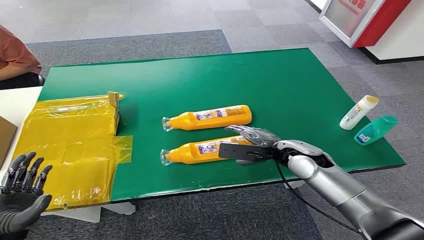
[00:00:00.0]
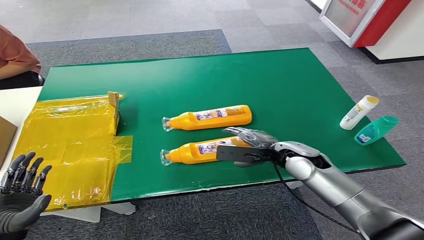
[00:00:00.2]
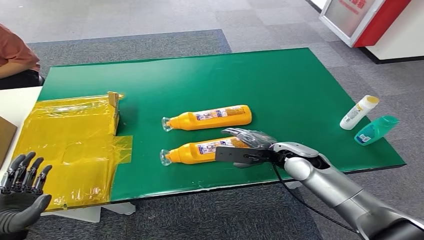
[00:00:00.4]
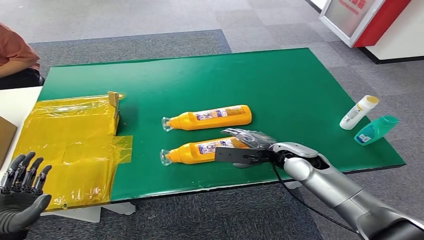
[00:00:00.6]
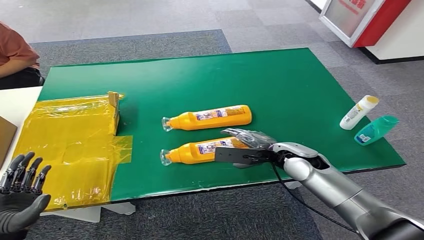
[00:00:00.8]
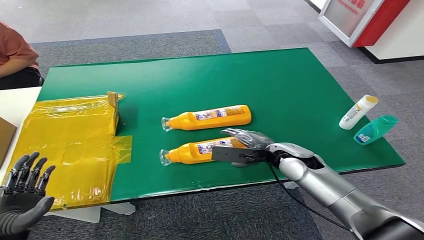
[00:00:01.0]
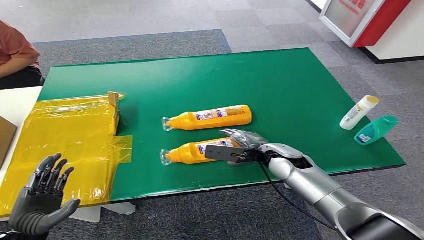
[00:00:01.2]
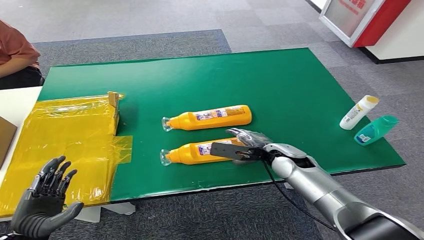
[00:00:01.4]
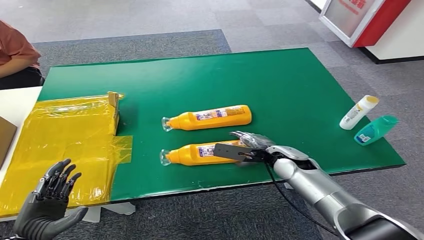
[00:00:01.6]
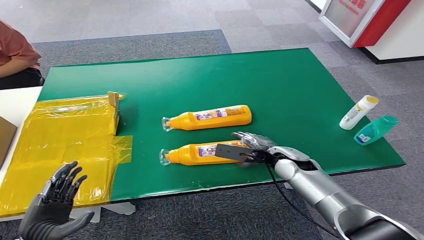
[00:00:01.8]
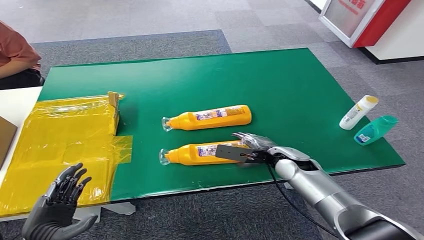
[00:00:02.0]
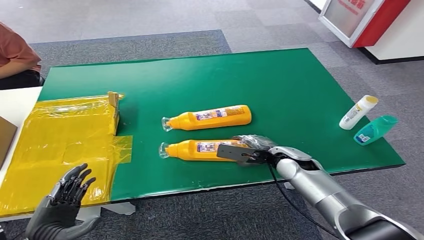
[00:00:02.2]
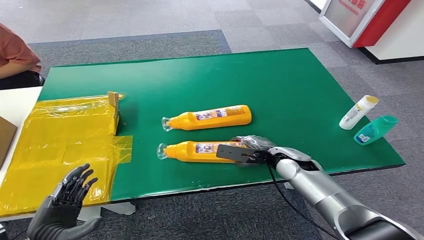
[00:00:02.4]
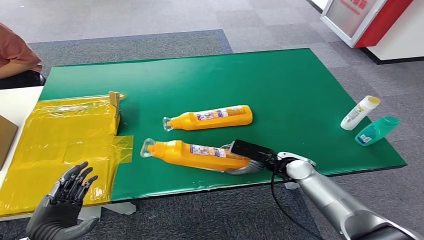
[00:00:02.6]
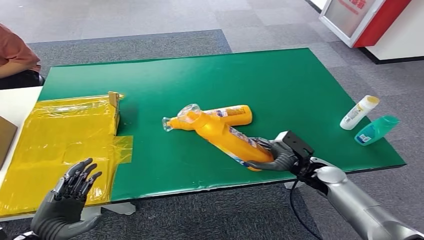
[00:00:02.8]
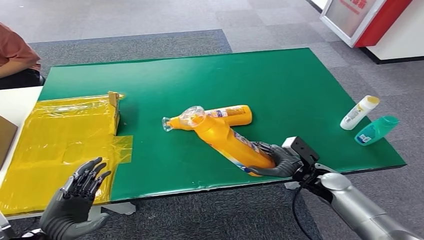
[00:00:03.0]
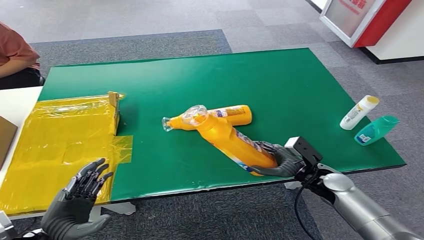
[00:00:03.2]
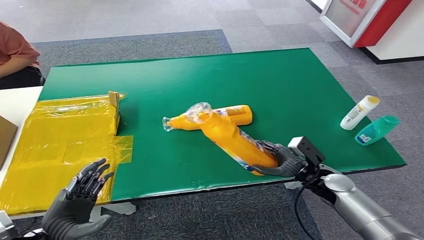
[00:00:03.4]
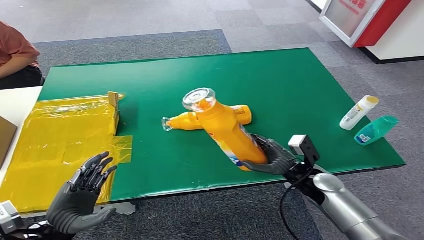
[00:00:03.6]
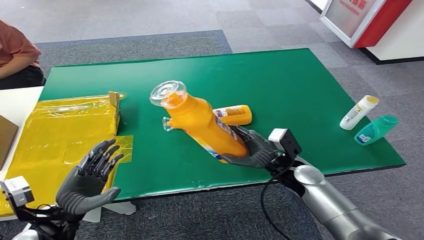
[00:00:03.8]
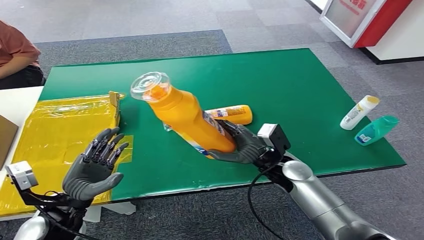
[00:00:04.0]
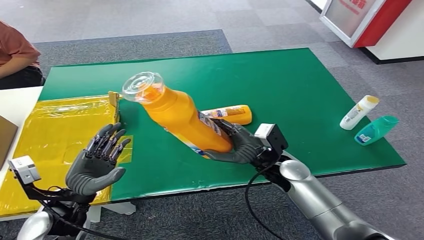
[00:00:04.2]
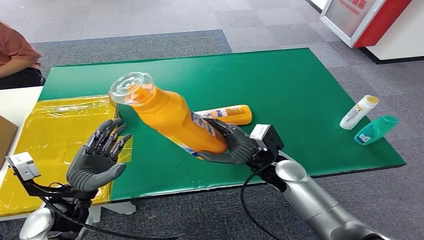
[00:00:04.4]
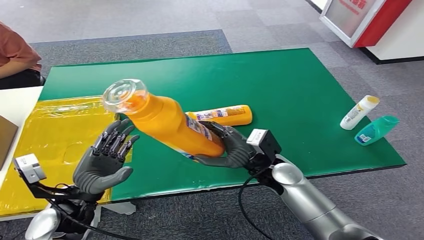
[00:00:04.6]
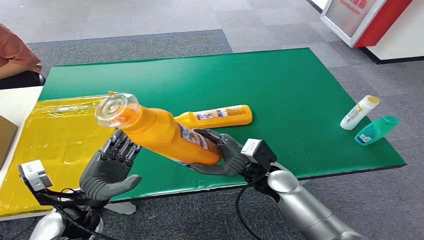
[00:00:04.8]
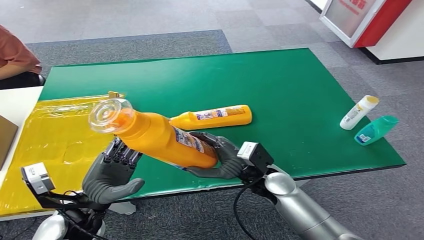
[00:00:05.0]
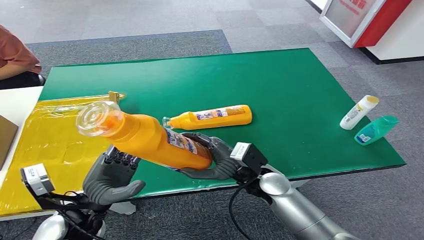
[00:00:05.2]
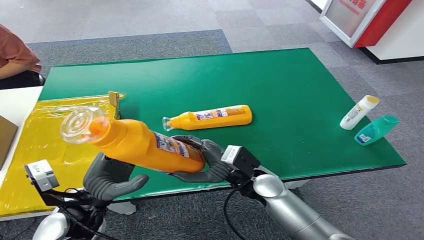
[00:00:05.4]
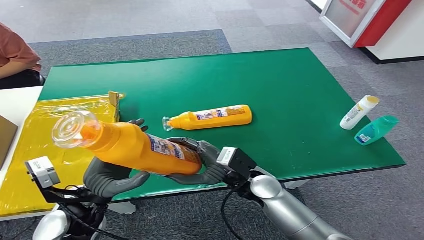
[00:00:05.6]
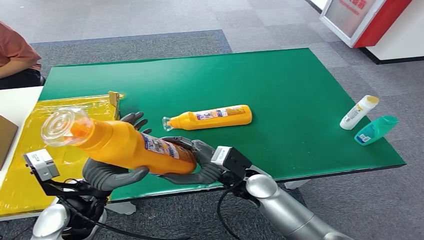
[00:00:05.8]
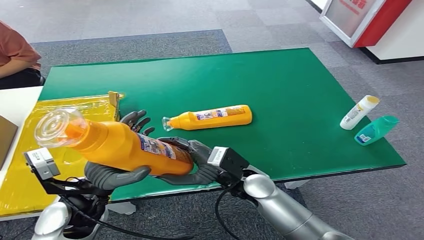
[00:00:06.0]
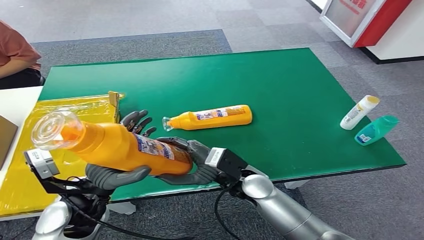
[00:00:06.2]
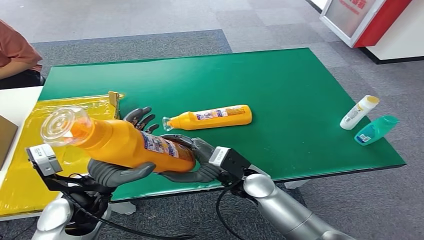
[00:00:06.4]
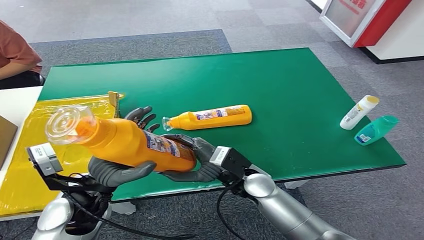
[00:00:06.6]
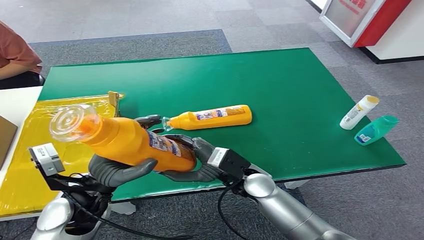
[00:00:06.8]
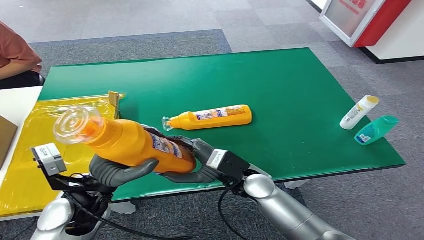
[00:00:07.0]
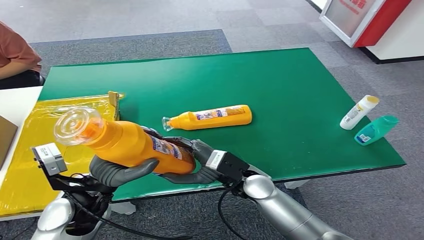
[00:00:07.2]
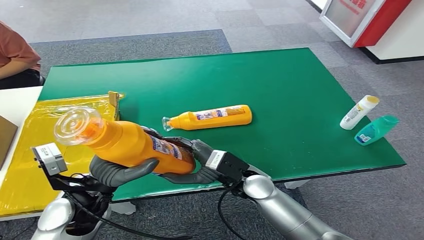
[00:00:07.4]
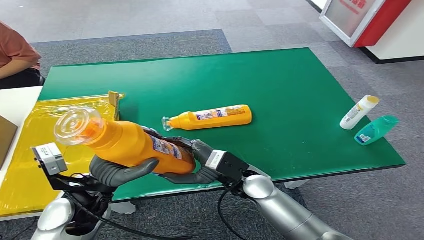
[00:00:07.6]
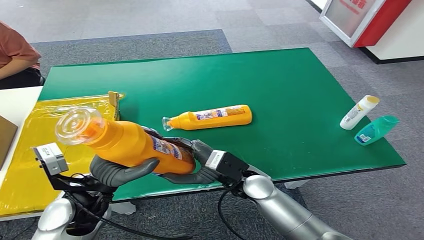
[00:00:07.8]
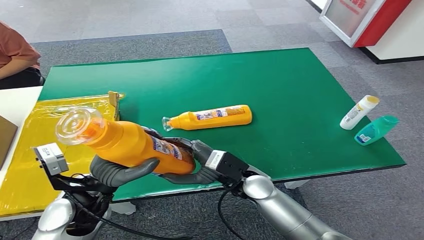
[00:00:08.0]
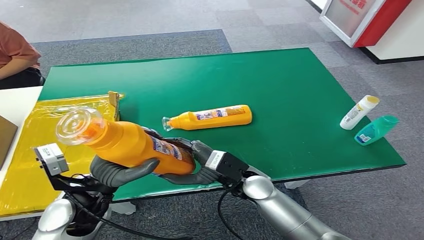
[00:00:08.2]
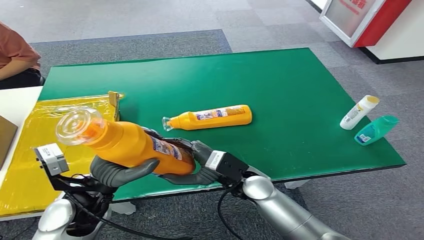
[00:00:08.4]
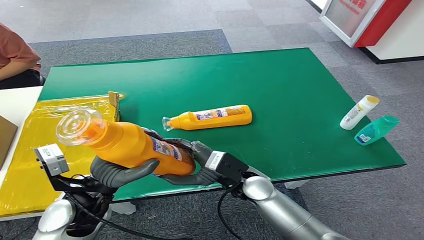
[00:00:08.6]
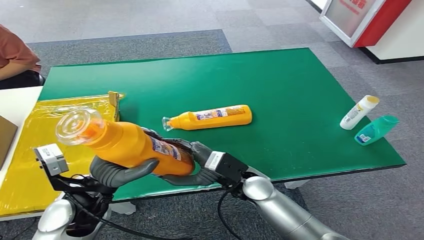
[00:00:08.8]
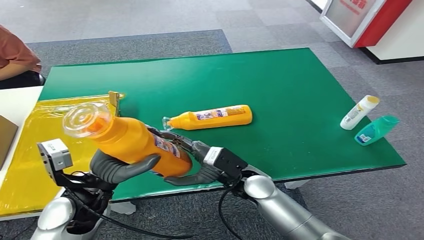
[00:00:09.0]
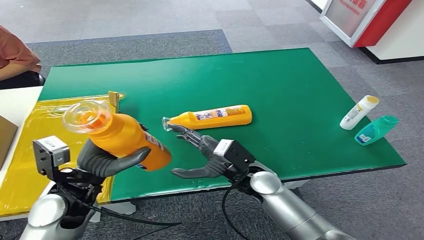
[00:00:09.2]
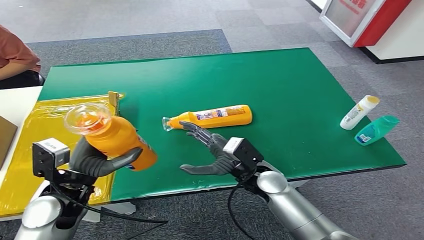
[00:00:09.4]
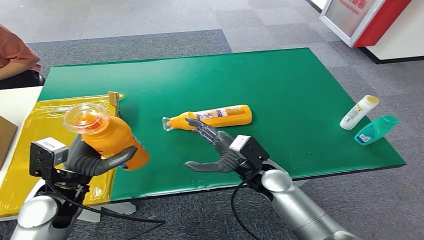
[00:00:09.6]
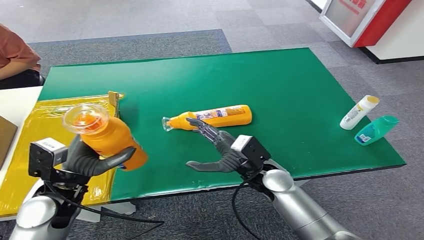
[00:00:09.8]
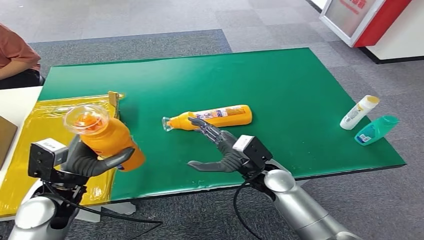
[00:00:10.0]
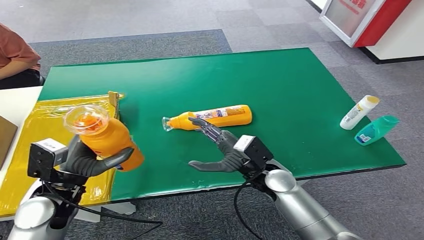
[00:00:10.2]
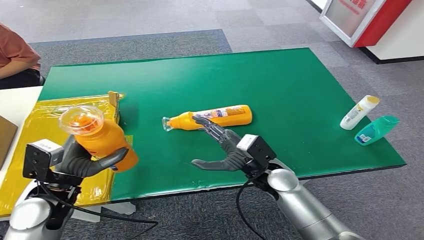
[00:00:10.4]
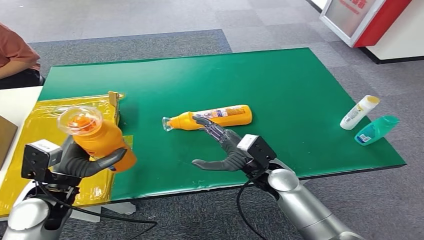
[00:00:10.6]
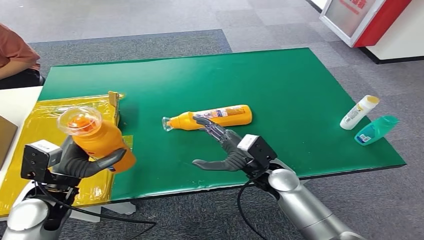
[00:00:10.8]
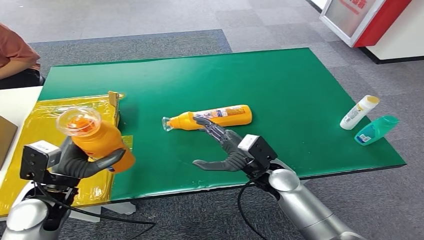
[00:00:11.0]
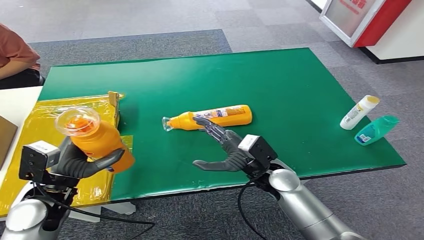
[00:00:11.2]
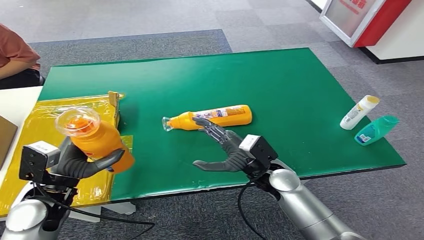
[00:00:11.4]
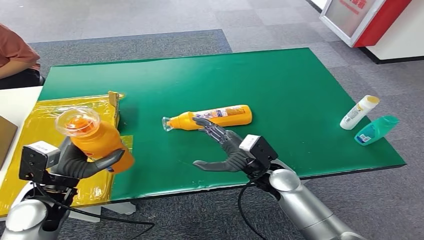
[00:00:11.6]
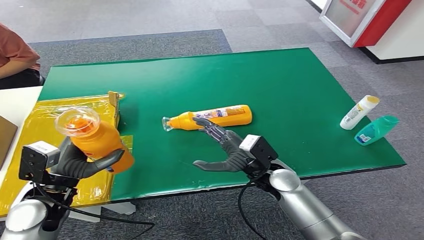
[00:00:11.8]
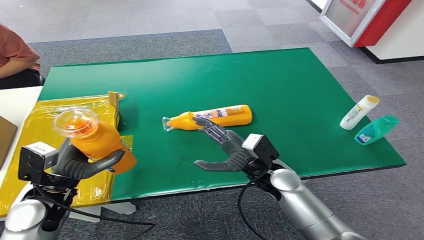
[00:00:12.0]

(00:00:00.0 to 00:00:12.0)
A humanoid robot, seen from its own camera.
Step, 00:00:00.0 - 00:00:03.2: Pick up the bottle from the table.
00:00:01.6 - 00:00:03.0: The right hand heads to the right and backward, covering approximately 10 cm.
00:00:03.0 - 00:00:04.4: The left hand shifts roughly 10 cm forward. Meanwhile the right hand goes approximately 15 cm to the left and upward.
00:00:06.0 - 00:00:09.0: The hands move only a little.
00:00:09.0 - 00:00:10.4: The right hand moves to the right, roughly 5 cm. The left hand is displaced to the left by about 5 cm.
00:00:10.4 - 00:00:12.0: Both hands stay about where they are.

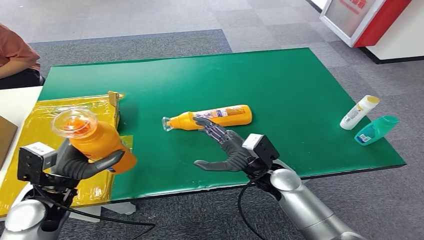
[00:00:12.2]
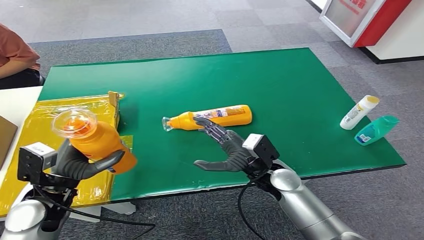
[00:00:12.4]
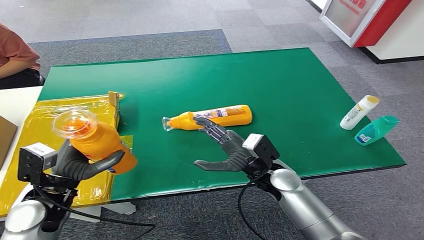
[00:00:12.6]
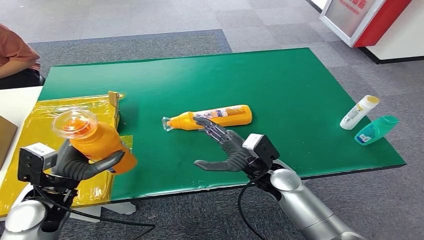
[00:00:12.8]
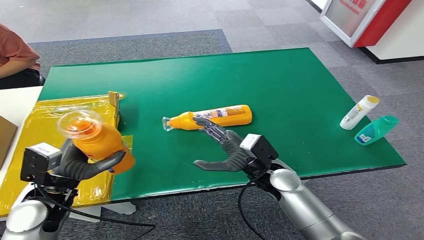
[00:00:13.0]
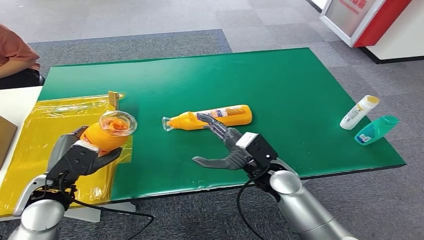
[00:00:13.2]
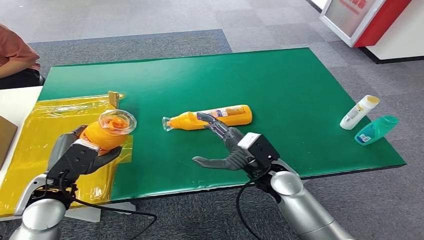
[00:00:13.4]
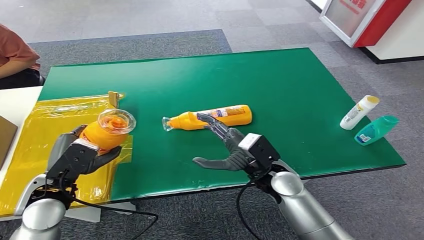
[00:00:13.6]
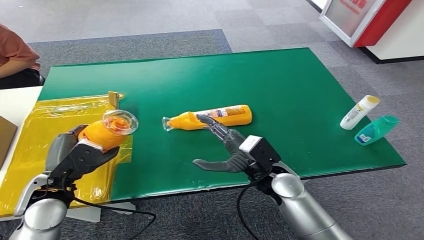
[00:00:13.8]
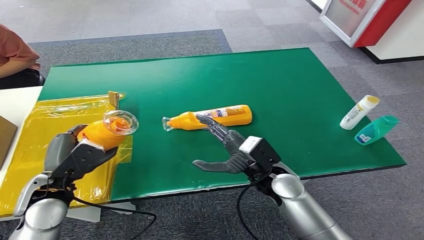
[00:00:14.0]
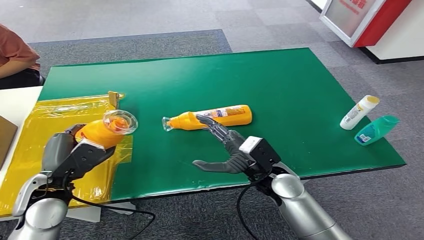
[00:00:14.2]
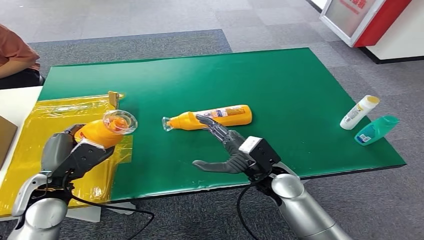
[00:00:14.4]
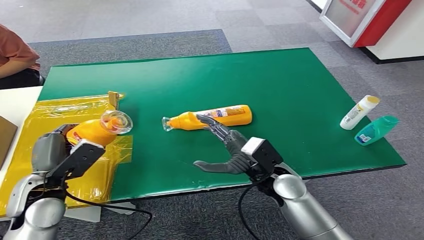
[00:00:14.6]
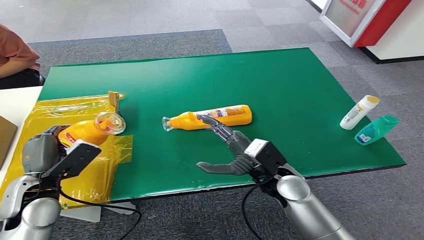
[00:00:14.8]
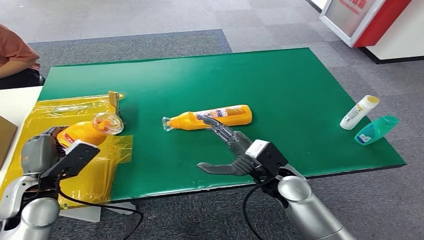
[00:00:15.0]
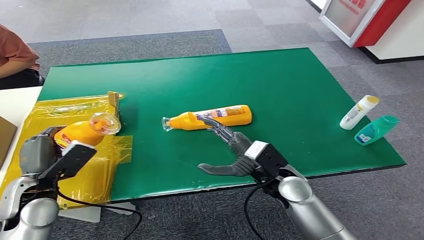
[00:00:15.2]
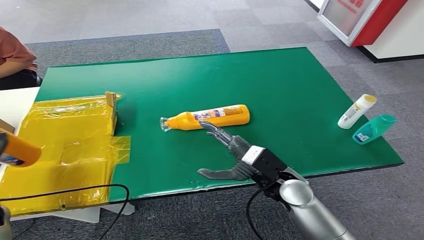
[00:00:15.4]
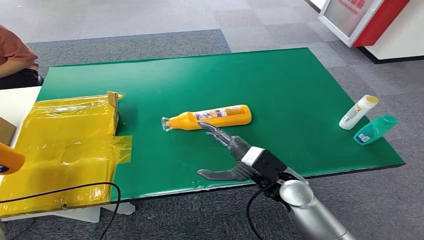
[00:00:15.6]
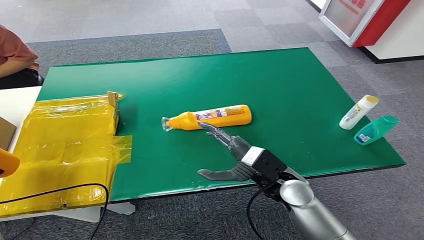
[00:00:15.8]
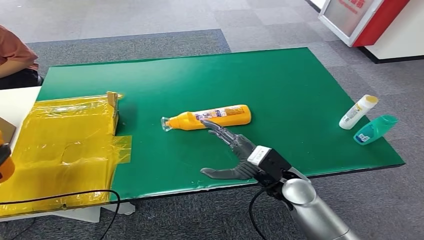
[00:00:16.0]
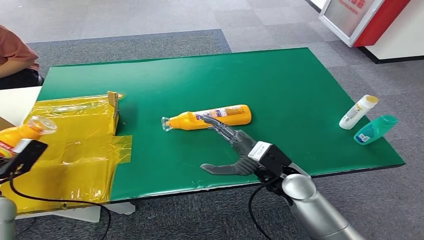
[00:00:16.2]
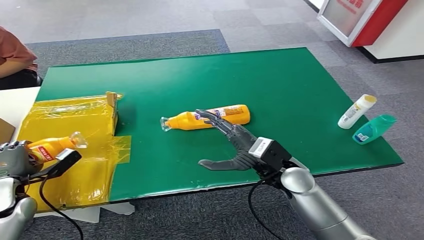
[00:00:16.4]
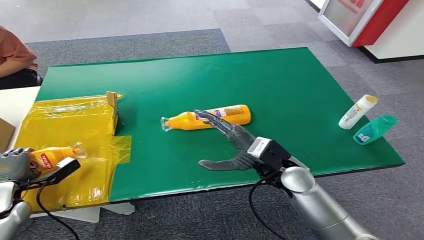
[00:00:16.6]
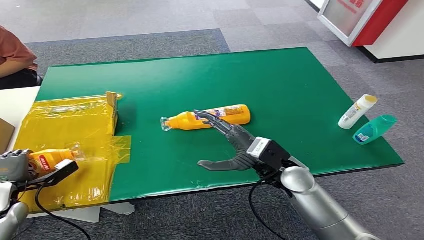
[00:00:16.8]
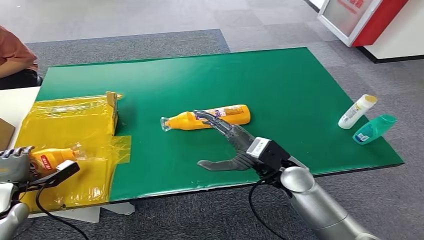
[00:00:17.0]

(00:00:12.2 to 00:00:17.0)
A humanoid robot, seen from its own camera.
Step, 00:00:12.2 - 00:00:16.8: Turn the bottle to the front side.
00:00:13.8 - 00:00:15.4: The left hand moves to the left, about 10 cm.
00:00:15.4 - 00:00:17.0: The left hand travels downward by some 10 cm.
